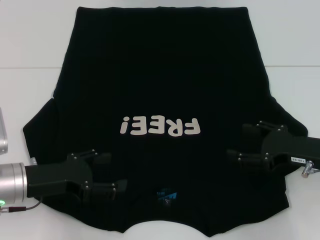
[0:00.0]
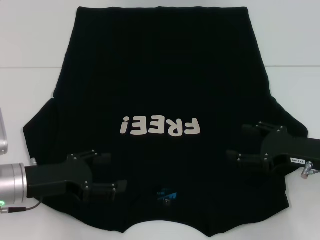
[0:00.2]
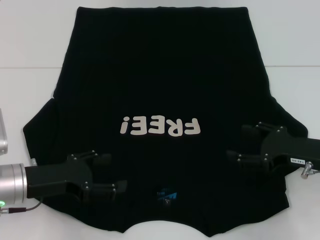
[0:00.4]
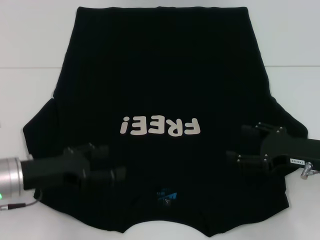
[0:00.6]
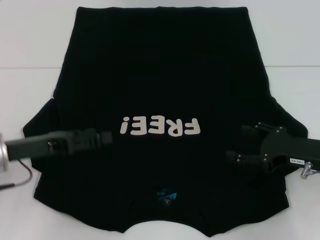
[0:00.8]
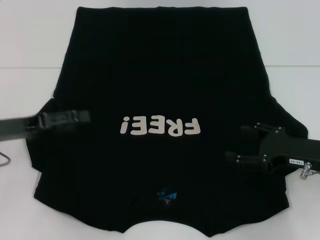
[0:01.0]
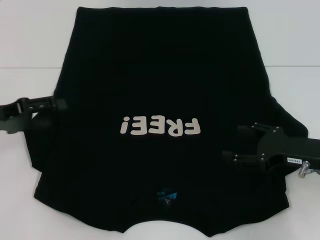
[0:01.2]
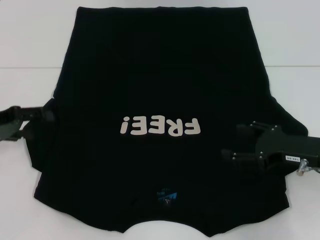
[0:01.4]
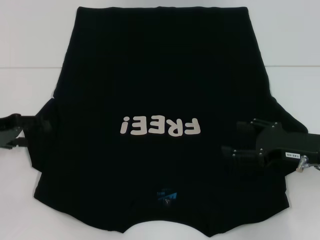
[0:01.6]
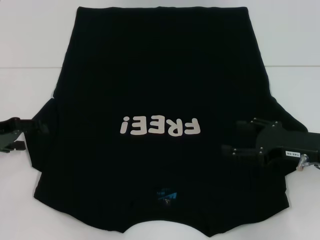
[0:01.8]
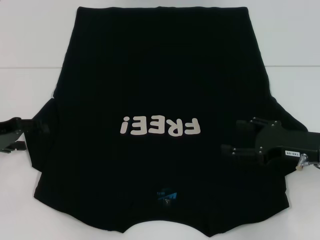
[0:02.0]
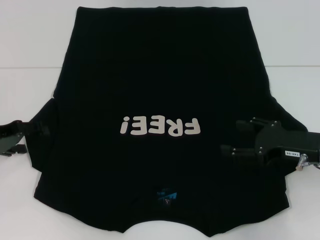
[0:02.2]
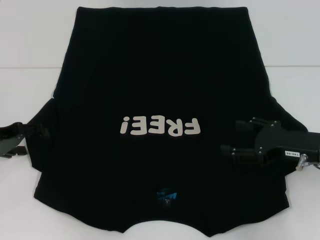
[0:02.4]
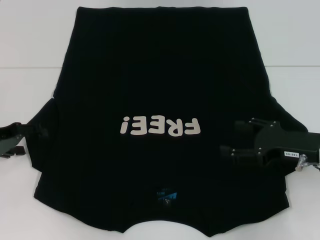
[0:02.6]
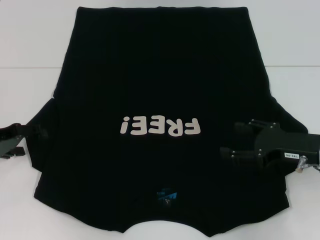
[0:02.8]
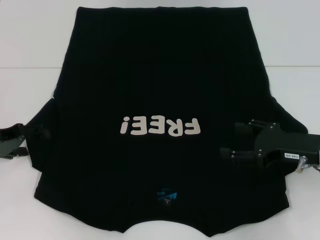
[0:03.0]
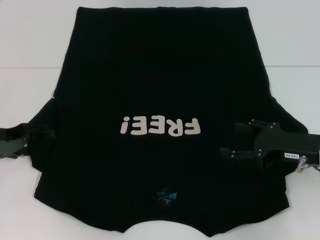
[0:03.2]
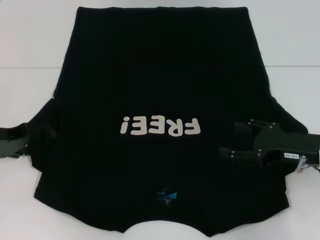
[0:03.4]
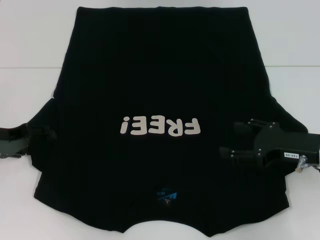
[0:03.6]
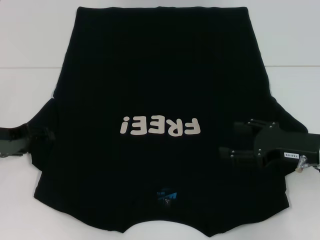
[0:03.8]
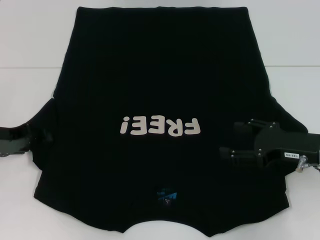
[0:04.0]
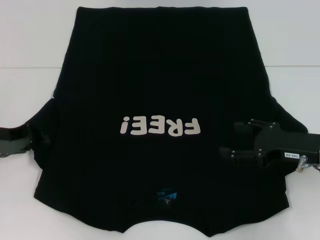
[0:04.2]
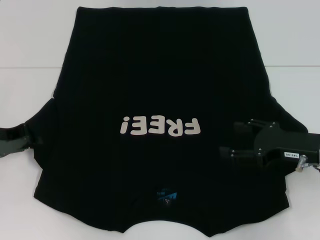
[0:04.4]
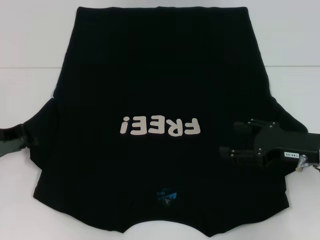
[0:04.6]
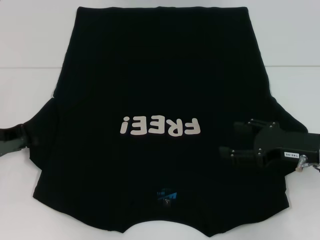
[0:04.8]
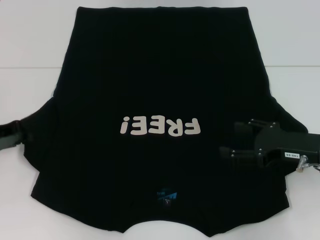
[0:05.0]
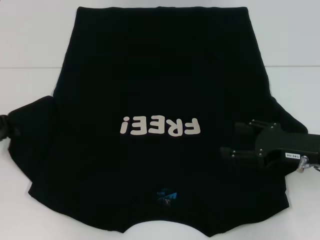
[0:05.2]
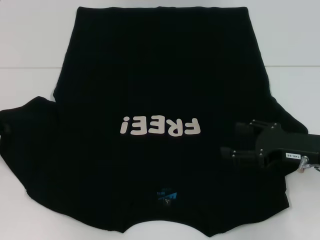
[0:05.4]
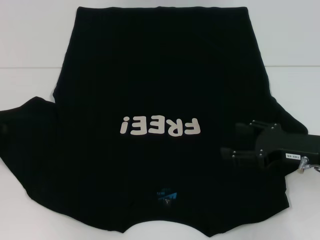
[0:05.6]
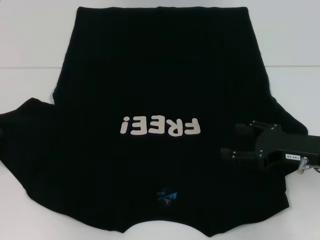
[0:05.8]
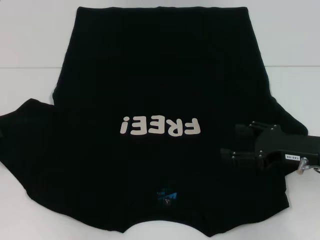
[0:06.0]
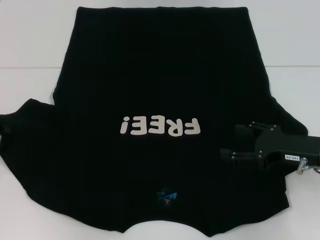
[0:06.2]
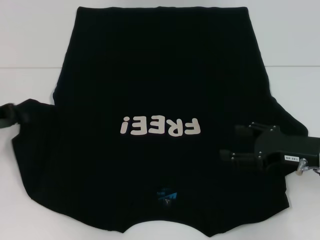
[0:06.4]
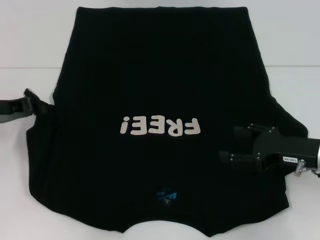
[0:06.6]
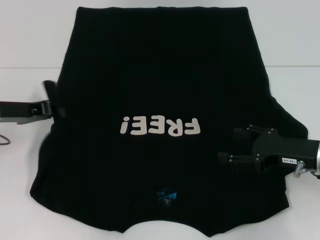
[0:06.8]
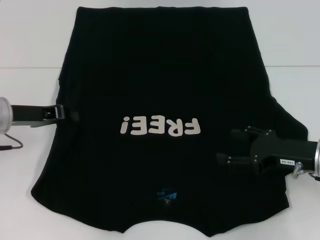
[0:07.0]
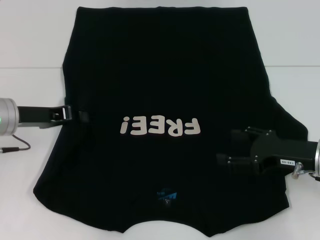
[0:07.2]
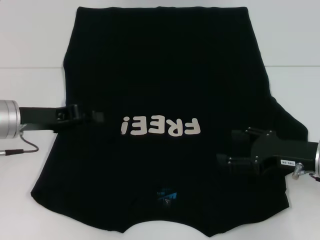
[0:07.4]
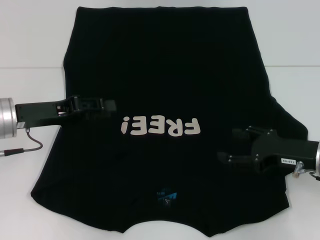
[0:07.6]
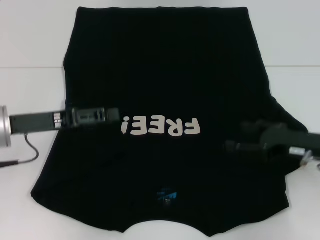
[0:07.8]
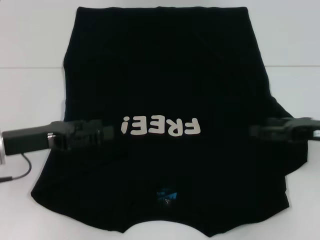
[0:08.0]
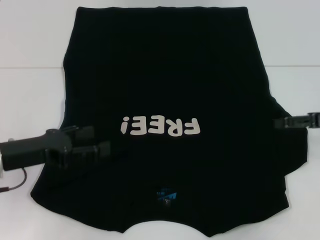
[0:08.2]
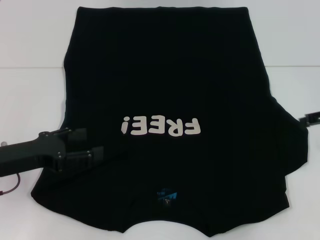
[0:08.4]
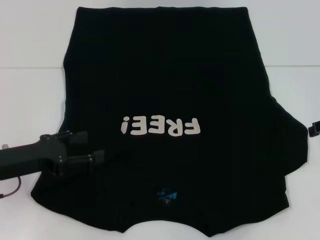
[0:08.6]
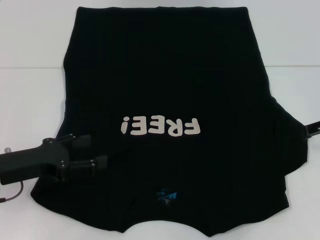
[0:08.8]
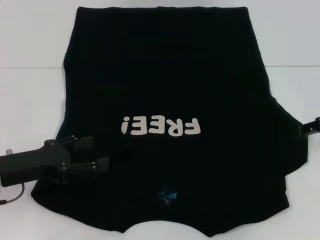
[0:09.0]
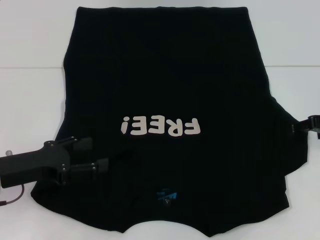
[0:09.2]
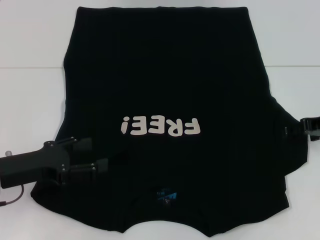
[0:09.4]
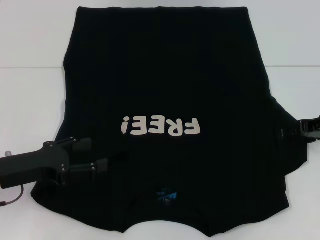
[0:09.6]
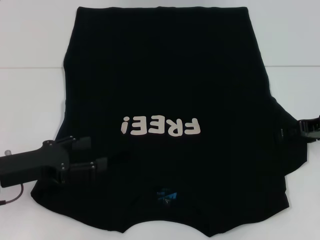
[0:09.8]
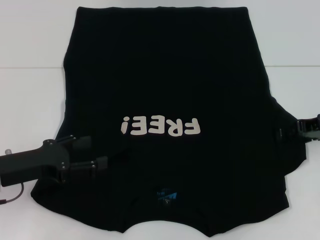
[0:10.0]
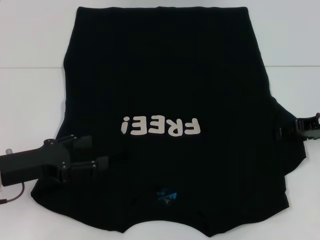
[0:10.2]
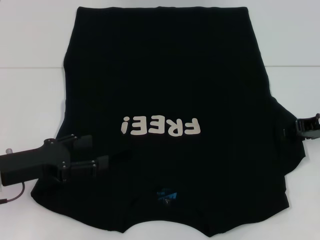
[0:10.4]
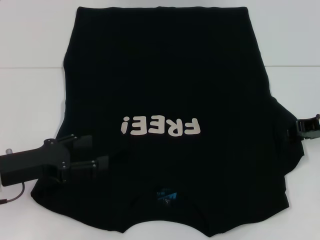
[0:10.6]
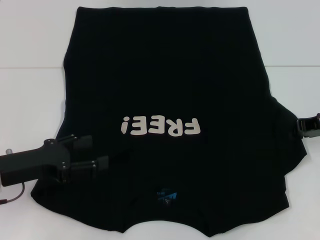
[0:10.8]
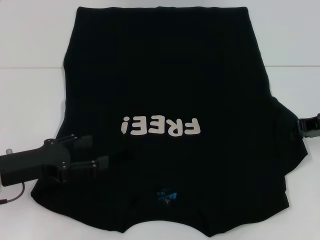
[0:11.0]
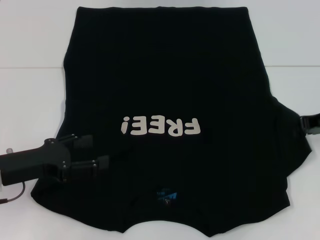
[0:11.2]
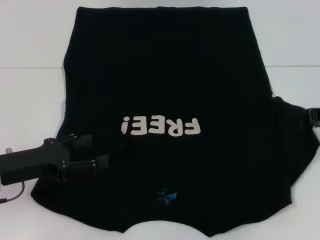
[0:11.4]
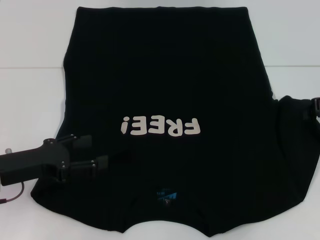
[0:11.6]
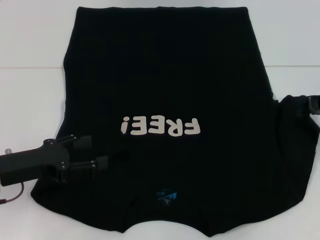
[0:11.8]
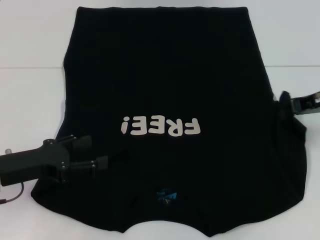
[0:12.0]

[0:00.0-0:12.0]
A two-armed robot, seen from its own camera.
Step, 0:00.0 to 0:07.4: Fold the bottom left sleeve with your left hand.
0:00.0 to 0:01.6: The left gripper moves to the left, forward and upward, roughly 15 cm.
0:01.6 to 0:03.0: The grippers make only small movements.
0:03.0 to 0:04.4: The left gripper closes its fingers.
0:04.4 to 0:06.0: The left gripper changes place by some 5 cm.
0:06.0 to 0:07.6: The left gripper is displaced to the right by approximately 10 cm.
0:07.6 to 0:09.0: The left gripper moves backward, approximately 5 cm, and opens up, while the right gripper heads forward, upward and to the right, covering approximately 10 cm.
0:09.0 to 0:10.4: The grippers stay close to where they were, moving slightly.
0:10.4 to 0:12.0: The right gripper closes up.

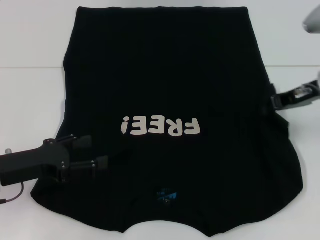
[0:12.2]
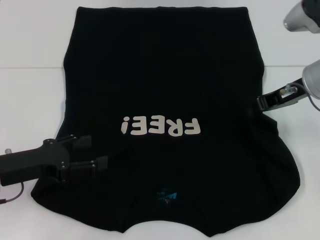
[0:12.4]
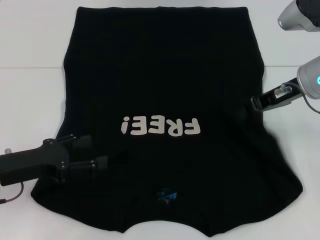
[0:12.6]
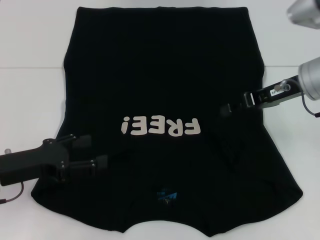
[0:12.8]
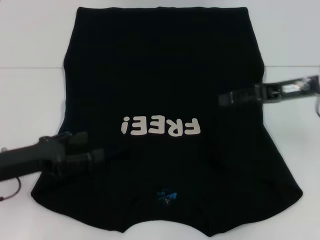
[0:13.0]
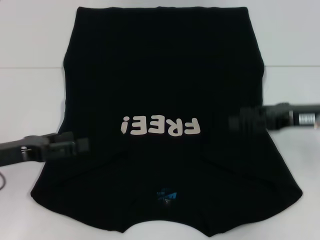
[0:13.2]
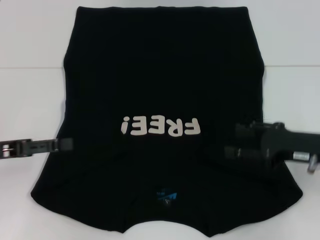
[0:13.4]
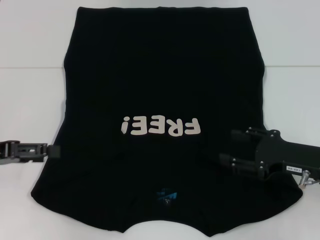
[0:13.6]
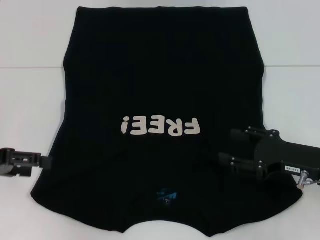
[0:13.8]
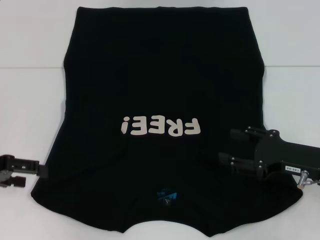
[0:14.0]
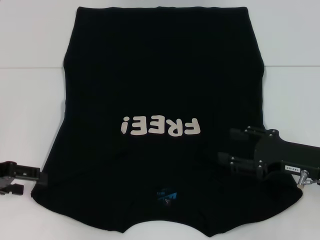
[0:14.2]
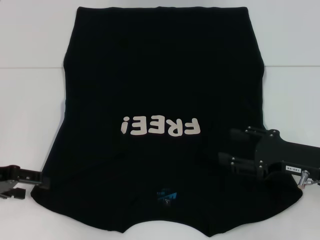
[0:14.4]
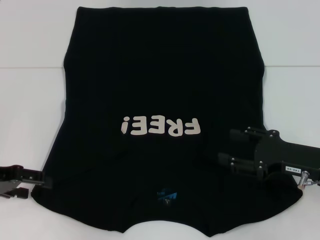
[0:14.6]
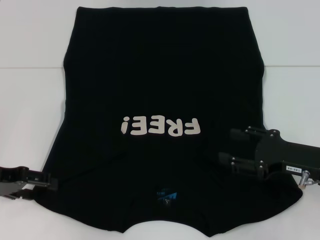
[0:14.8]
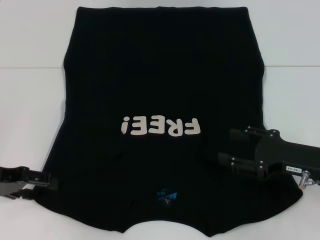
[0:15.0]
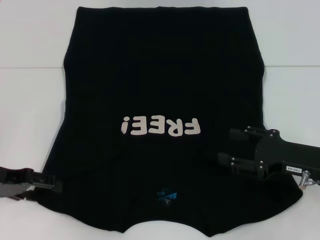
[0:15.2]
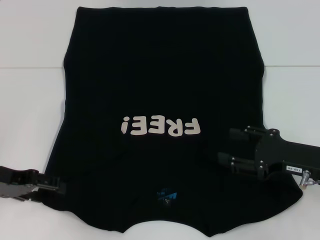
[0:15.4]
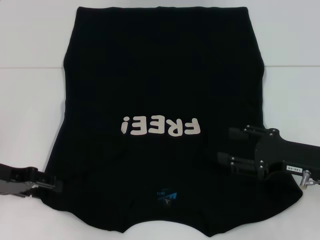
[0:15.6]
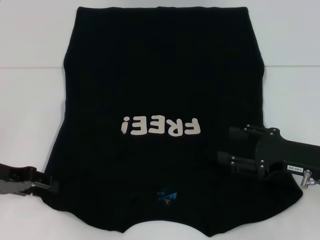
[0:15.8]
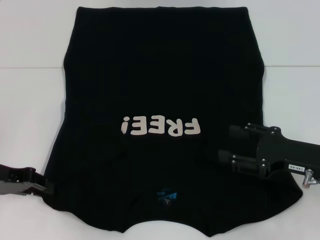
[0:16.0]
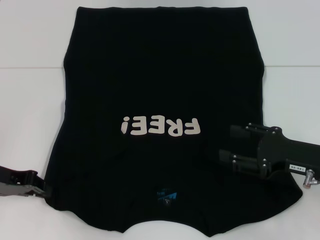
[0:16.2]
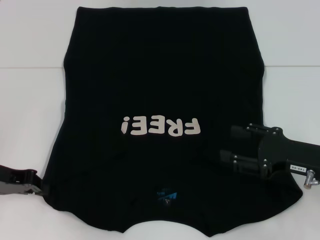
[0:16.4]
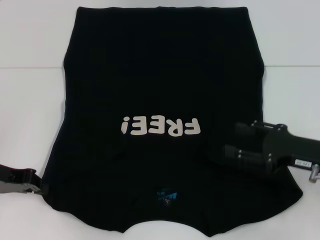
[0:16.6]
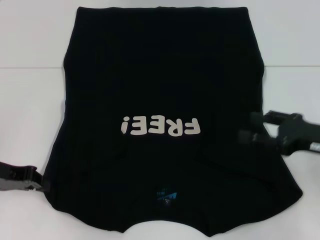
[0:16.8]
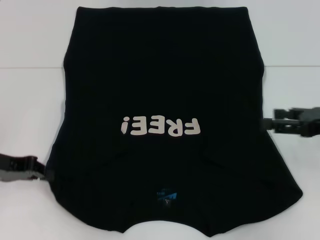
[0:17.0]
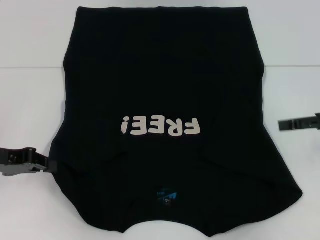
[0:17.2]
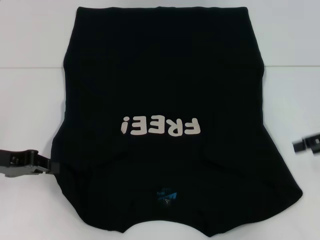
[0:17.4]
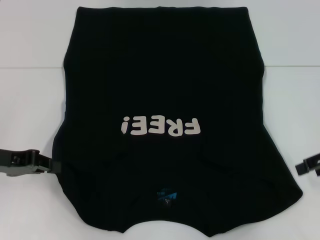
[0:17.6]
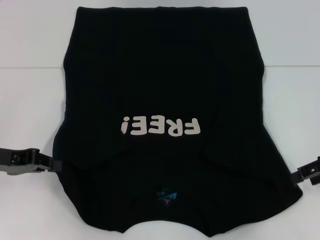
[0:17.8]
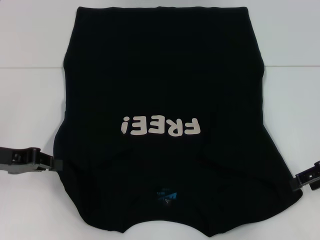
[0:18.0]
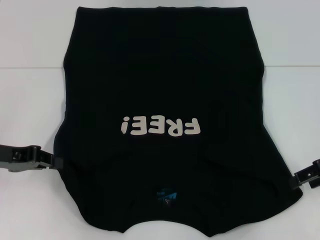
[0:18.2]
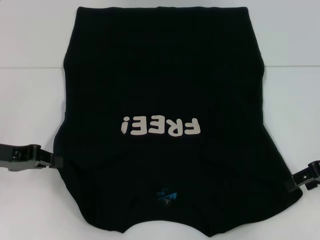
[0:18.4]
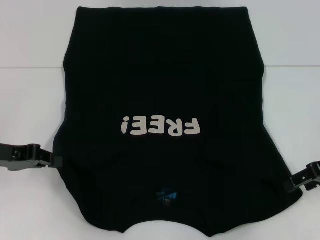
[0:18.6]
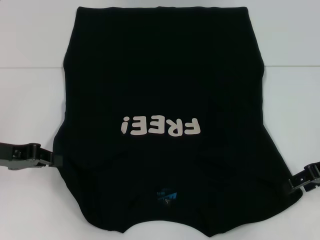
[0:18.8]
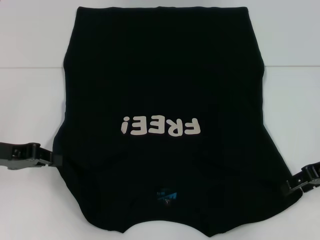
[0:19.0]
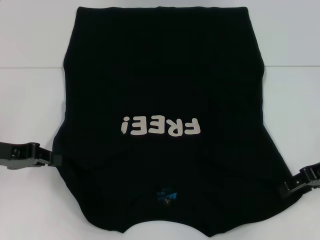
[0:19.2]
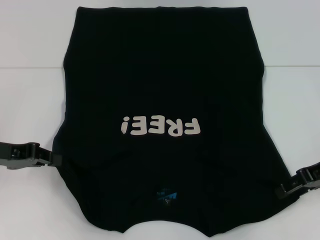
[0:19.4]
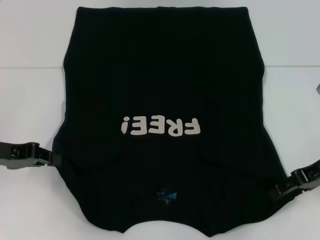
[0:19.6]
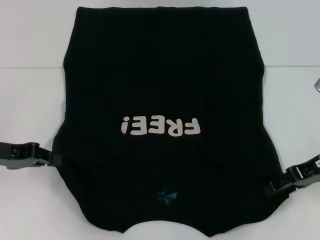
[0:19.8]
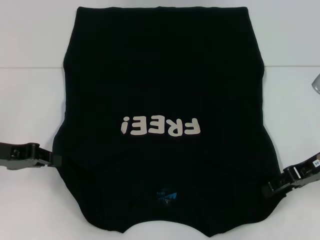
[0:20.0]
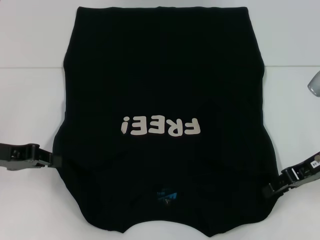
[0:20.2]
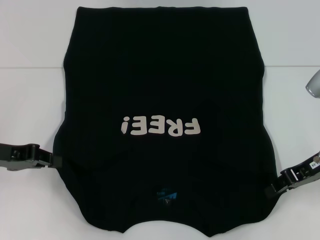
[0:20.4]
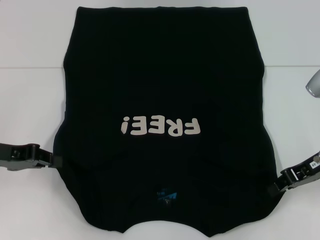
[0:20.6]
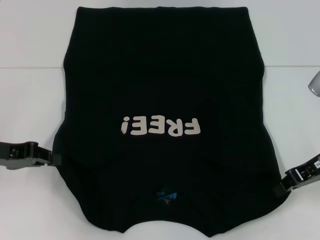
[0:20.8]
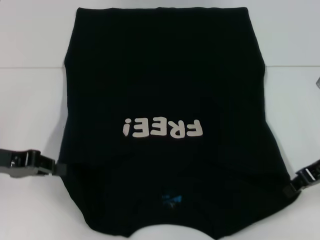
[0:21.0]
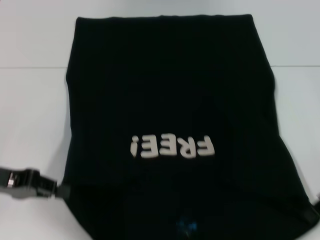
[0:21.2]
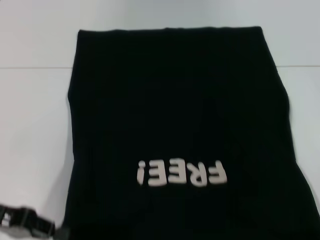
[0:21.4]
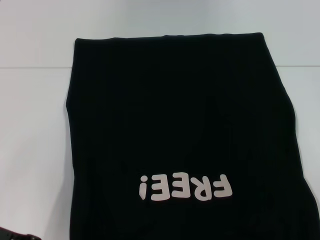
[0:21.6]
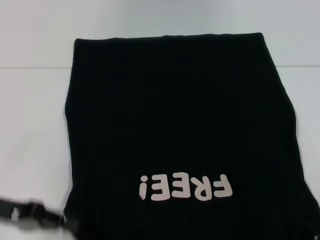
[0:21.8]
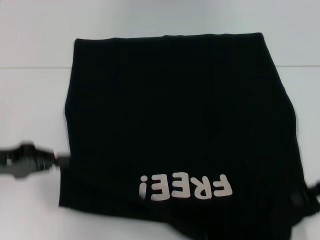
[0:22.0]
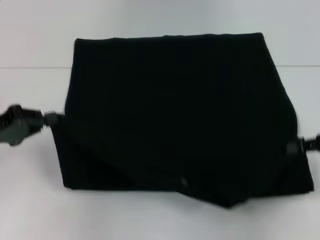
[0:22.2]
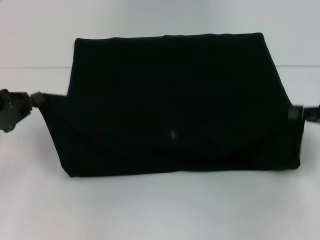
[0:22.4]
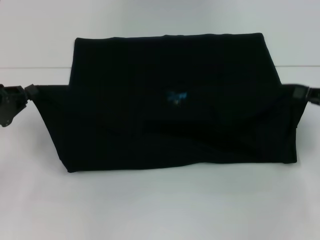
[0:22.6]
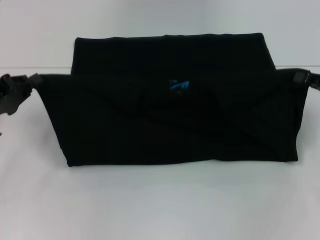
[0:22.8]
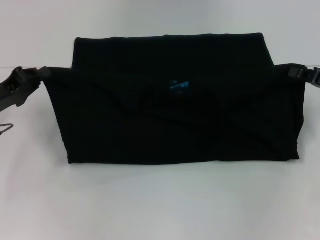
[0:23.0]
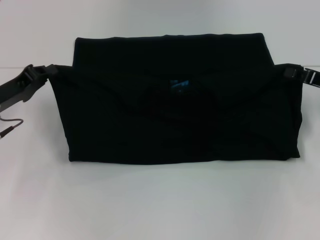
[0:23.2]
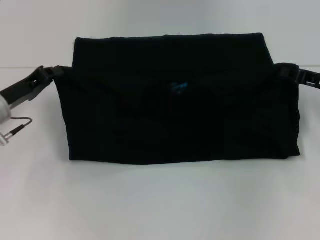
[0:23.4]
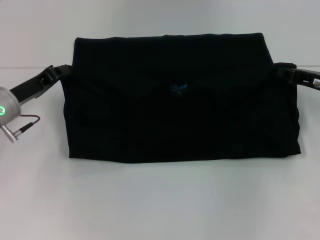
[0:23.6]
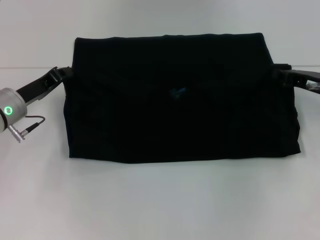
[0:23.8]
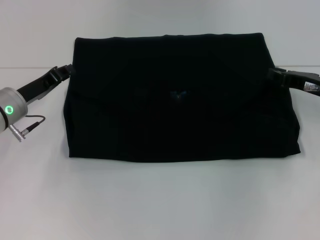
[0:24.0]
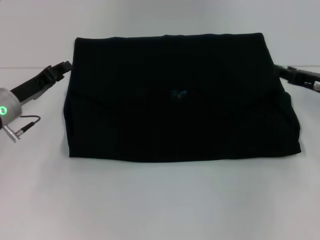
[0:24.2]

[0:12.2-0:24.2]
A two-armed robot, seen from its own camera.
Step, 0:13.4 to 0:16.6: Grab the bottom left corner with your left hand.
Step, 0:16.8 to 0:20.4: Grab the bottom right corner with your right hand.
0:12.2 to 0:13.8: The left gripper moves to the left and upward, approximately 10 cm, while the right gripper goes about 15 cm backward and downward, and opens up.
0:13.8 to 0:15.2: The grippers stay close to where they were, moving slightly.
0:15.2 to 0:16.6: The left gripper closes up.
0:16.6 to 0:18.2: The right gripper ends up about 10 cm from where it was.
0:18.2 to 0:19.8: The grippers stay close to where they were, moving slightly.
0:19.8 to 0:21.2: The right gripper closes.
0:21.2 to 0:22.6: The right gripper is displaced to the right by approximately 5 cm.
0:22.6 to 0:24.2: The right gripper changes place by some 5 cm. The left gripper shifts about 10 cm forward and to the right.
